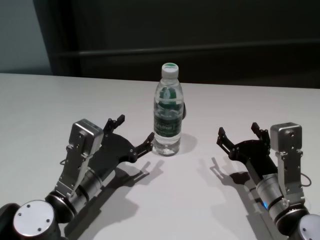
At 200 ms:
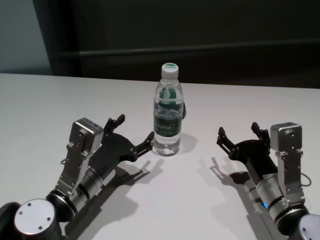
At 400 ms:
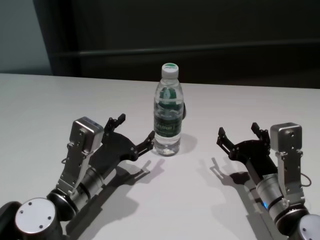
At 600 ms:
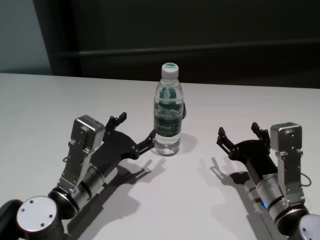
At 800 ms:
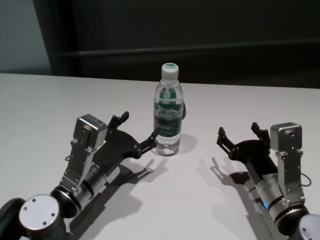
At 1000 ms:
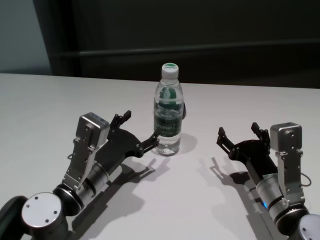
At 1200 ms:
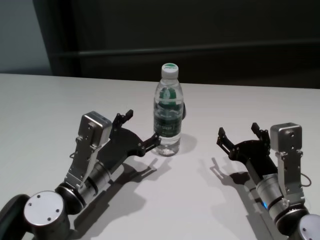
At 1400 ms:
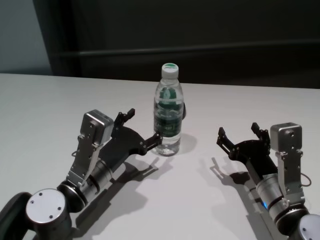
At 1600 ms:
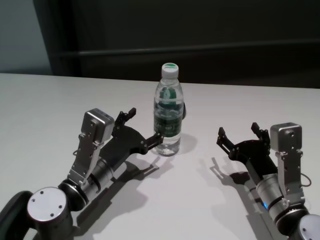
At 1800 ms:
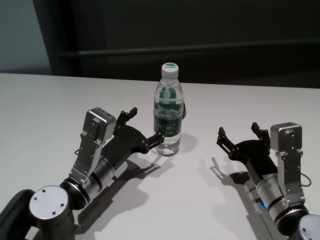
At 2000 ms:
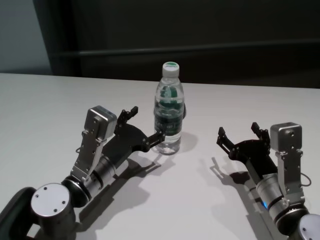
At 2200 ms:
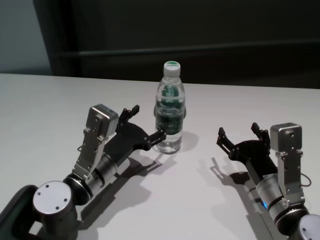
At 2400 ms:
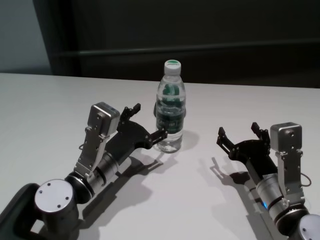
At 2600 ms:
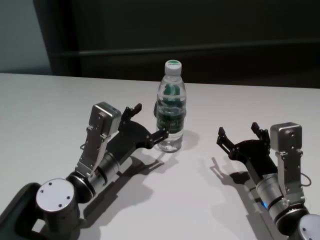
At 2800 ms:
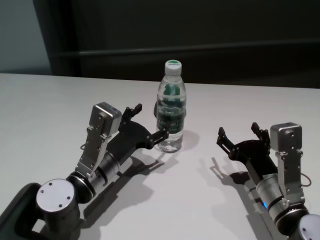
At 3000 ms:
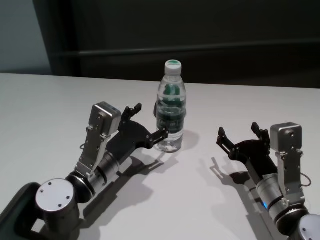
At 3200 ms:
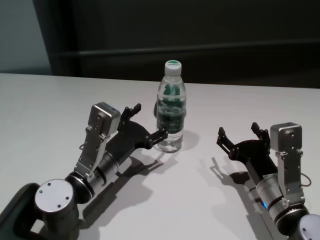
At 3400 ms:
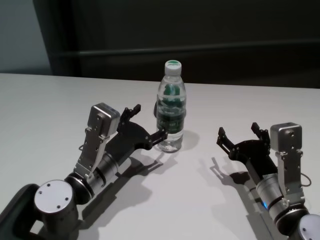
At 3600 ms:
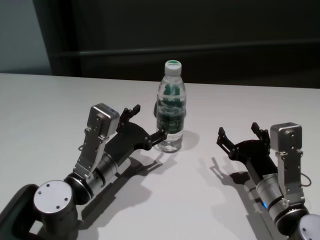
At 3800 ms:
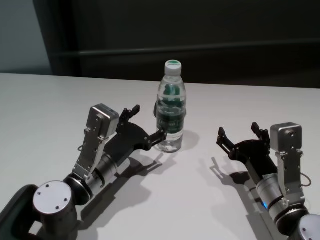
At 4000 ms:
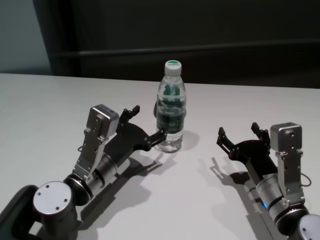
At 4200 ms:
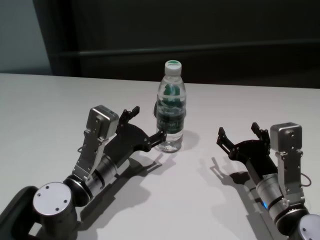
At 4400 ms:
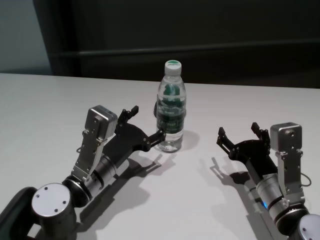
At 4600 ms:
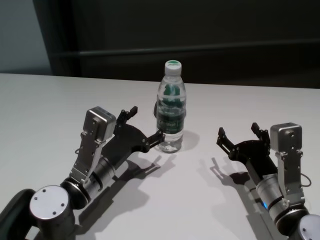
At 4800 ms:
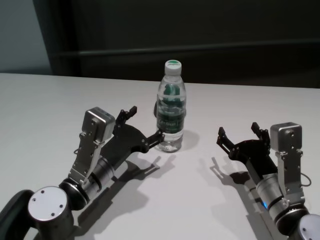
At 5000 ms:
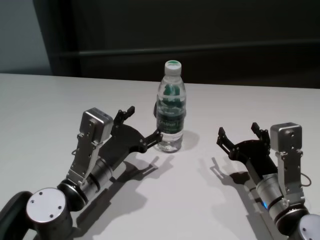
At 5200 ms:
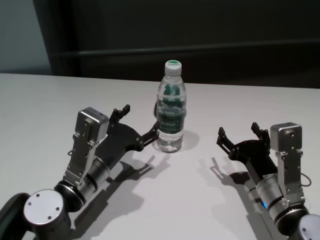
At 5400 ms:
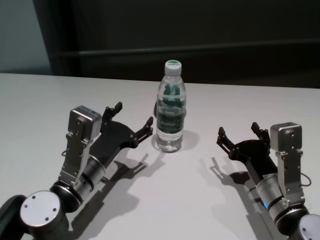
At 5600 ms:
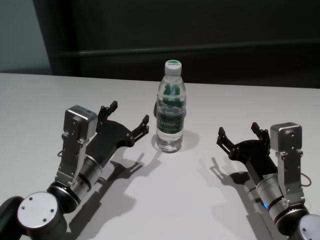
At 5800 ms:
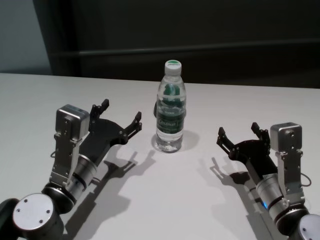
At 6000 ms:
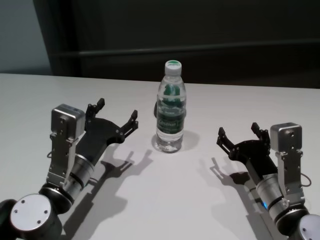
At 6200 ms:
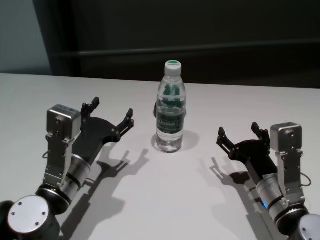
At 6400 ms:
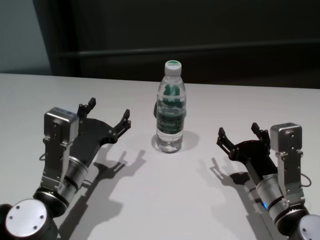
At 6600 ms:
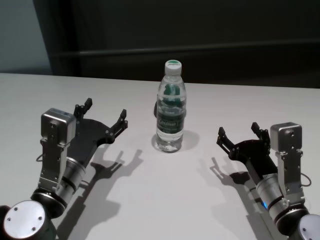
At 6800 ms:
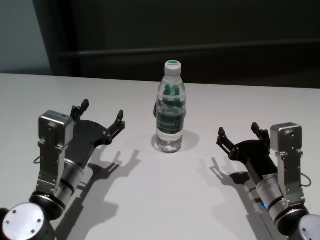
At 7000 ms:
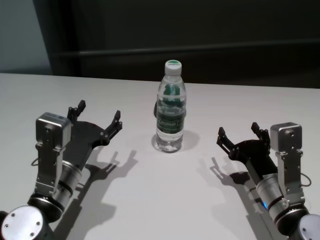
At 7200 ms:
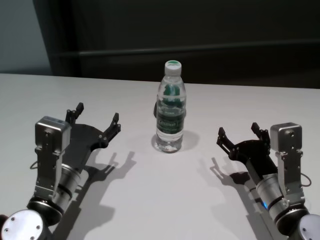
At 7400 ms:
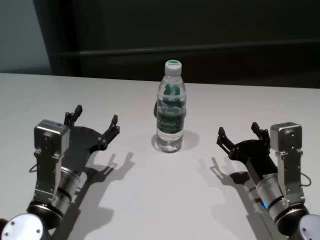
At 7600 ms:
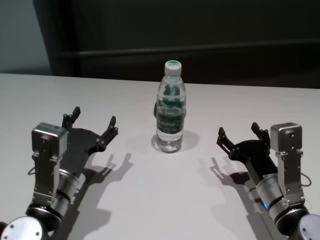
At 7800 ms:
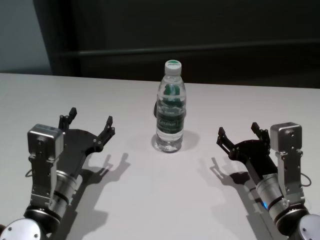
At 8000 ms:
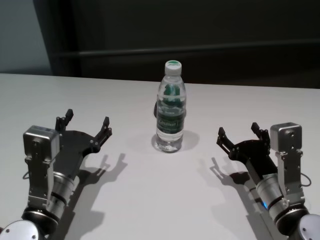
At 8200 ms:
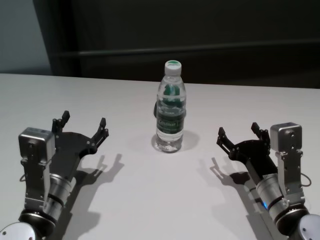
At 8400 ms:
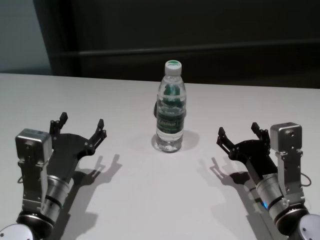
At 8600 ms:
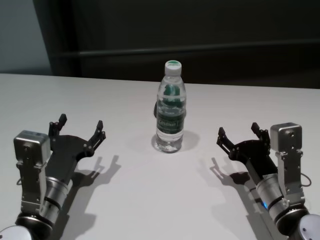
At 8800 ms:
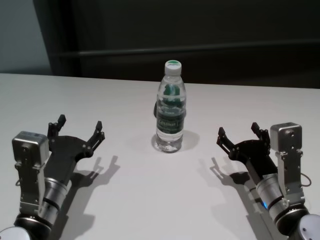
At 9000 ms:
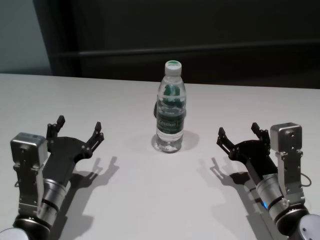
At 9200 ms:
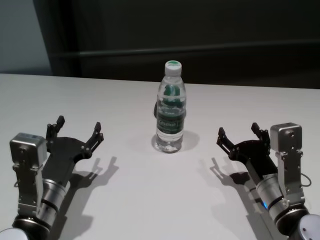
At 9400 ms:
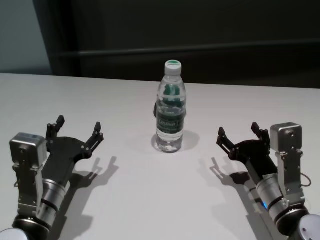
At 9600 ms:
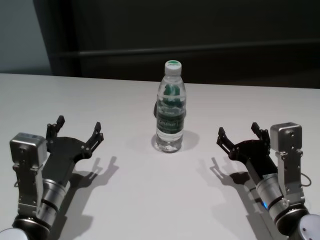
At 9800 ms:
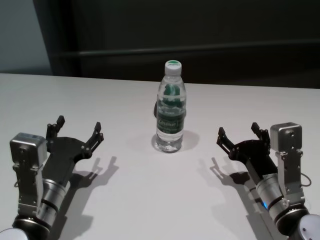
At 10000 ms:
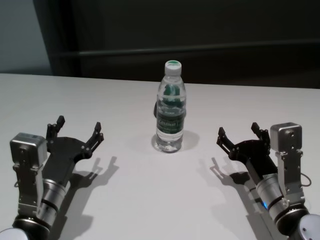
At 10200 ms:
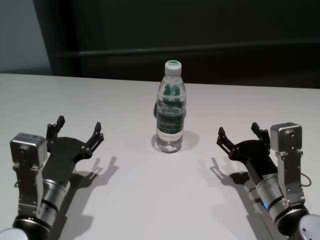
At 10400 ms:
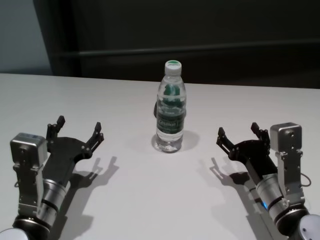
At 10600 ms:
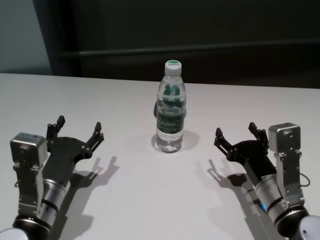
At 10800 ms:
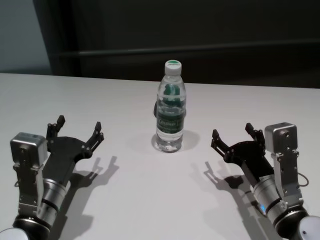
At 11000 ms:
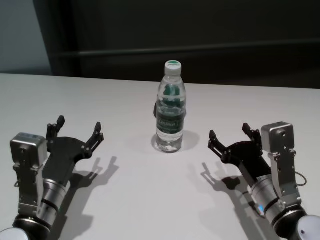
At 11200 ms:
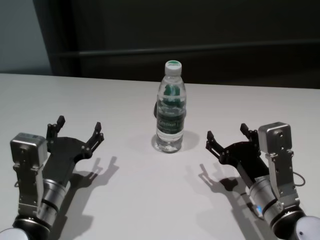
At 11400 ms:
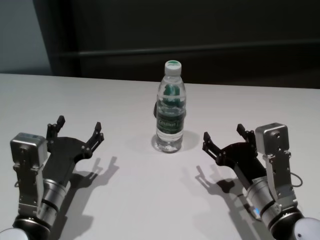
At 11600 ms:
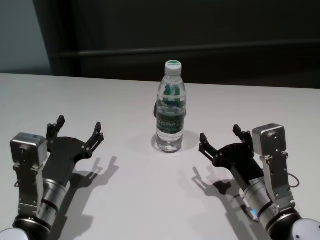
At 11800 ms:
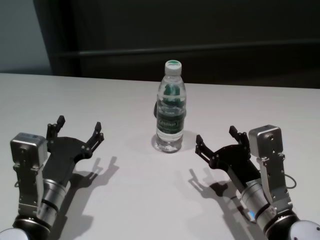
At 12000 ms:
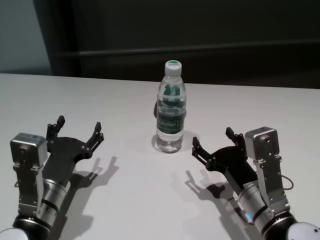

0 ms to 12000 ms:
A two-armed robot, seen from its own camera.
Task of the whole recording: return to a safe position after touching an obstacle with your arm on the white table.
Step, 0 ms to 5600 ms: Touch the bottle with left gripper.

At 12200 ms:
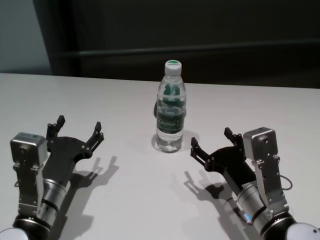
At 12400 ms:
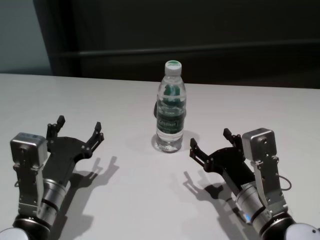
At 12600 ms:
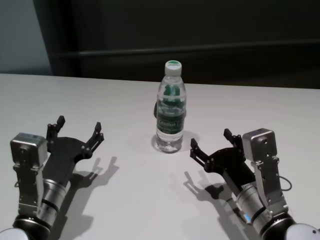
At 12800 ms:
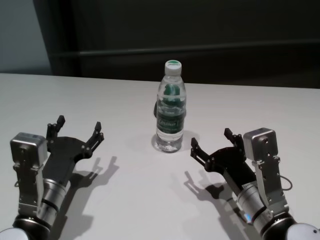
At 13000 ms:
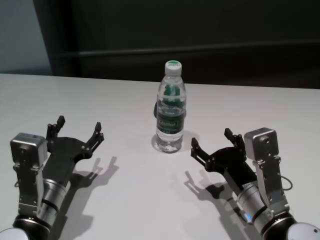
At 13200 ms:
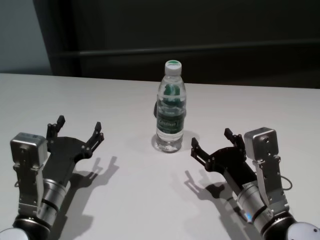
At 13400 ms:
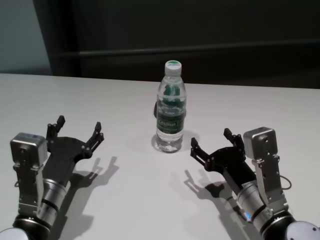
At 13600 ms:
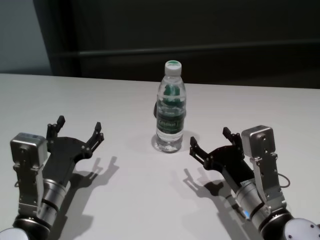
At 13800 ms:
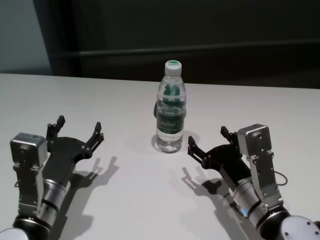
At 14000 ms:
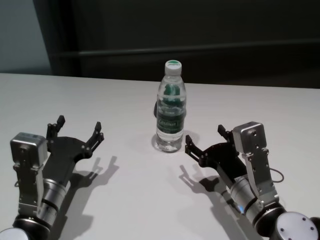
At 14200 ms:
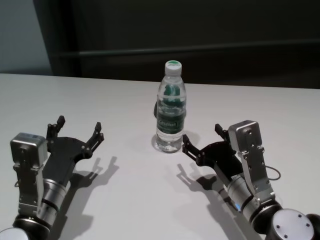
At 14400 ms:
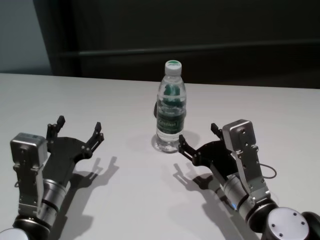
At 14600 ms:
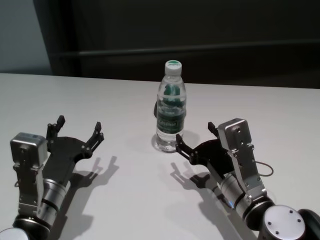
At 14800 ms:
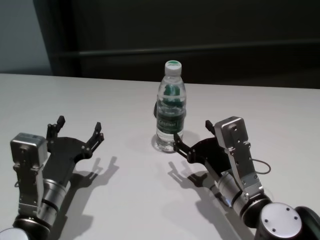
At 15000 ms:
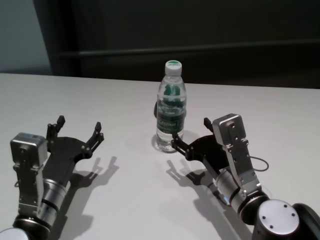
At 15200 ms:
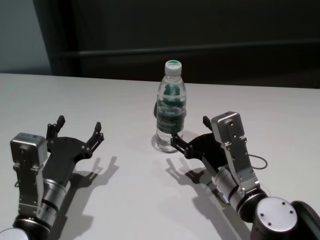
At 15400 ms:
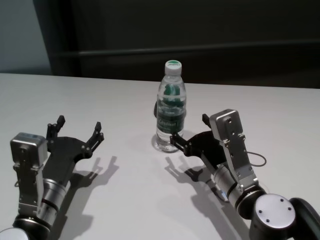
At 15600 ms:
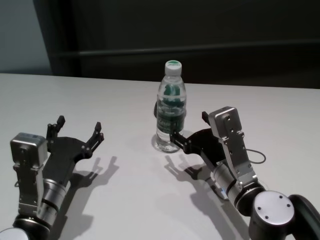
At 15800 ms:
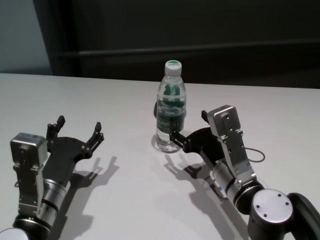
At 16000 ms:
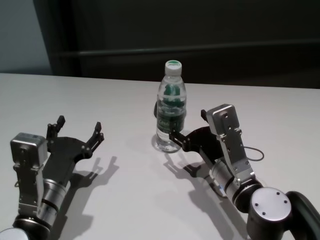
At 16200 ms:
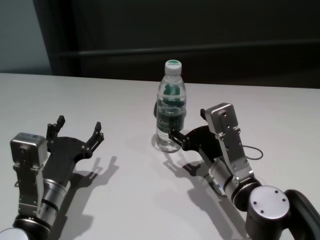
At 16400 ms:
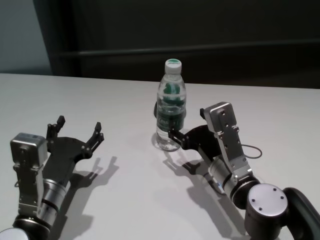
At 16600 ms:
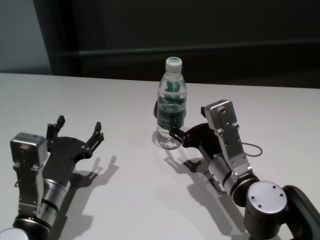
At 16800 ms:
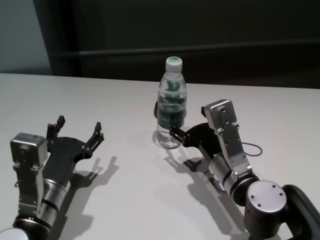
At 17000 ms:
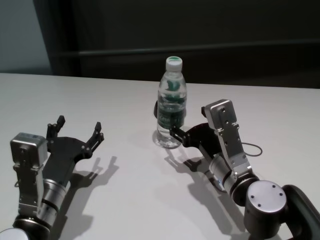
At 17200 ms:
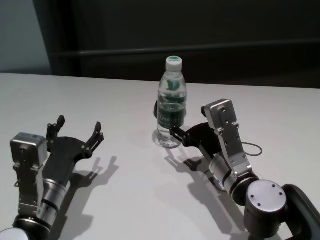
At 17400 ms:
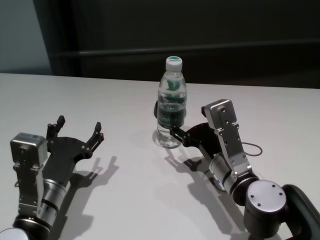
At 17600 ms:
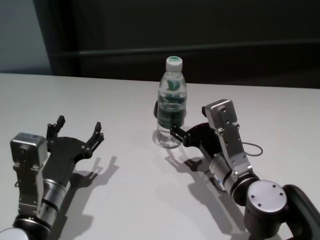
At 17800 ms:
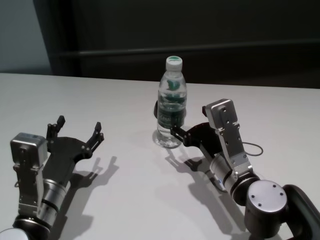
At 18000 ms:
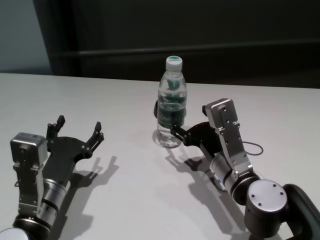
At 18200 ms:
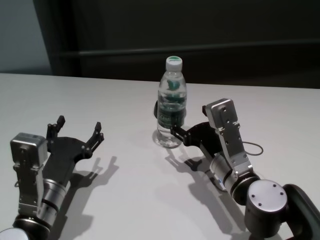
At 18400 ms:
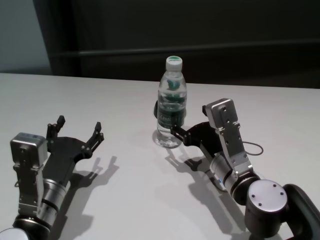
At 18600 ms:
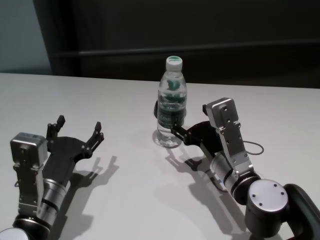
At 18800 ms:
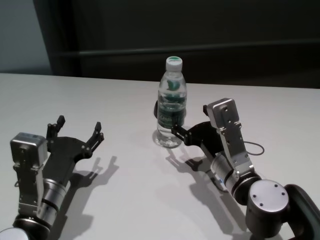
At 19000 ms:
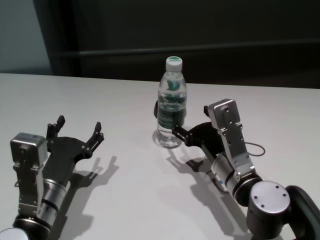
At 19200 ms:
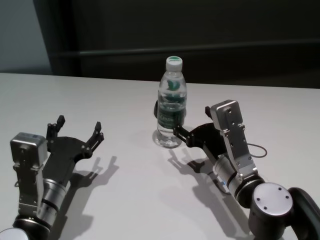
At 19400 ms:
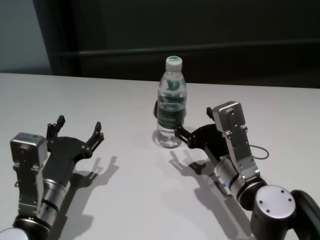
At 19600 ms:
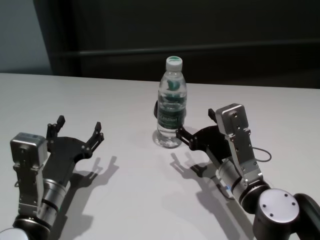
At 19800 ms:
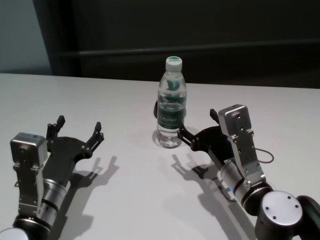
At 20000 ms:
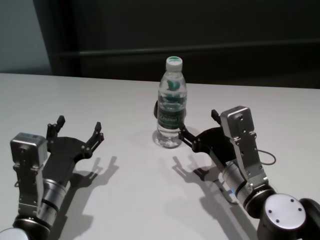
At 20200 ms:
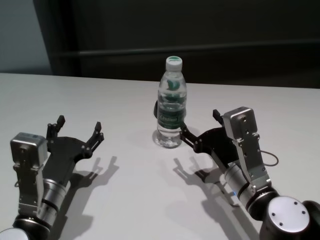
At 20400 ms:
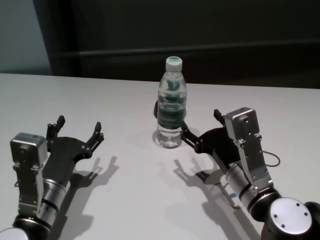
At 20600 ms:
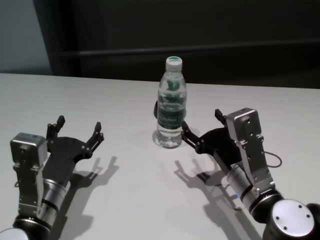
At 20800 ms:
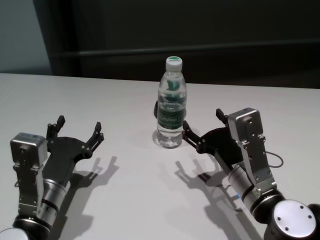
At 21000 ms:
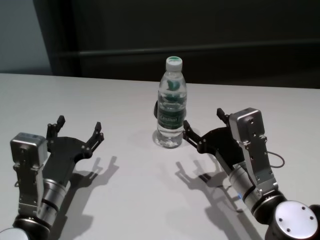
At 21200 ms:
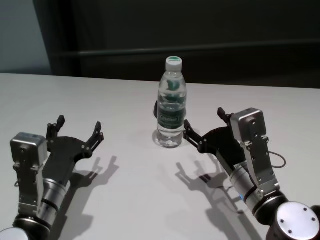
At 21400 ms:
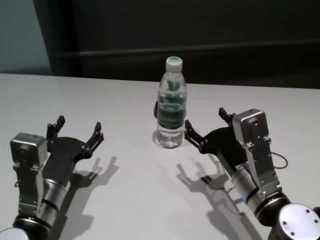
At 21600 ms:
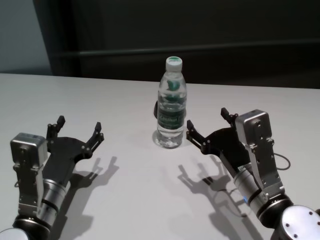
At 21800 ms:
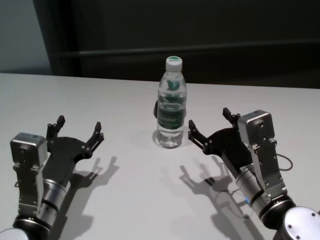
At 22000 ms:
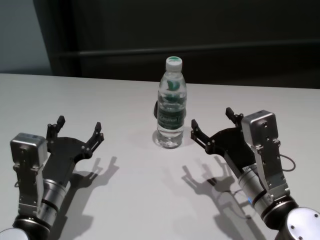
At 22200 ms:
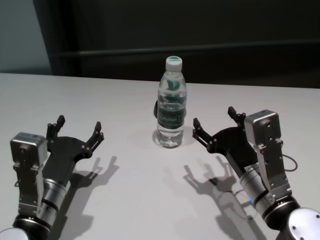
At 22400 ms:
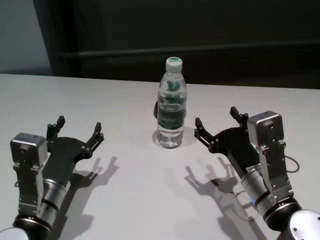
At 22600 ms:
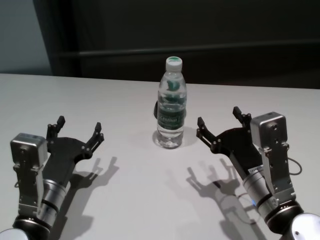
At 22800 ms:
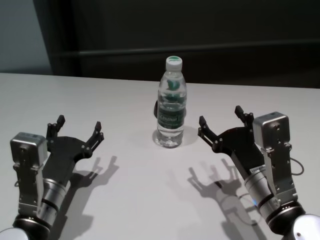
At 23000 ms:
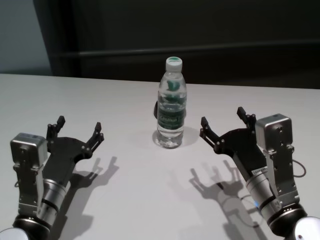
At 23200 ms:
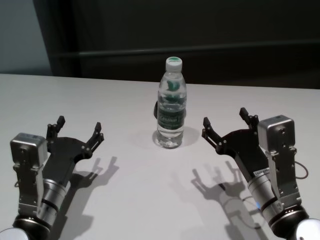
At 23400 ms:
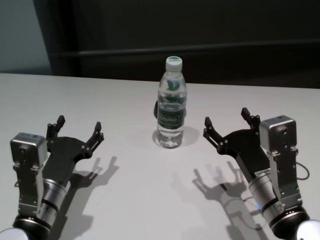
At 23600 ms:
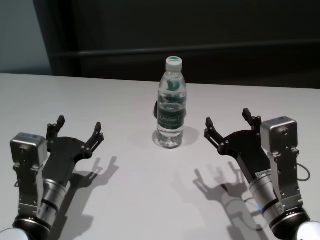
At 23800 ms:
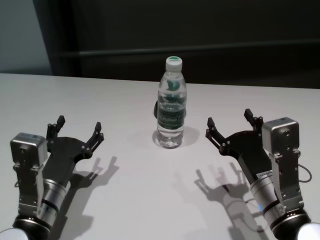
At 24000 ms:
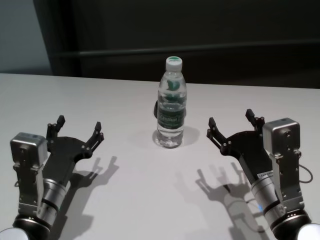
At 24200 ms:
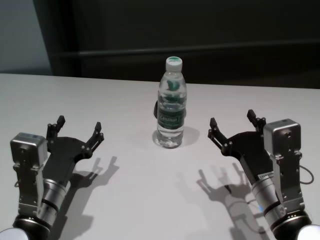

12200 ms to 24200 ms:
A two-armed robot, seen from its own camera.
Task of the whole recording: return to a safe position after touching an obstacle with your arm on the white table.
Step, 12200 ms to 20000 ms: Touch the bottle with right gripper.
